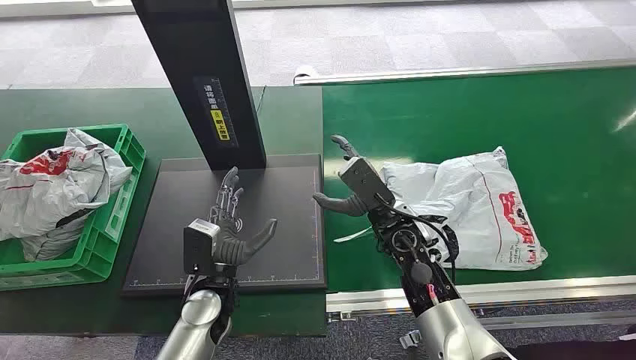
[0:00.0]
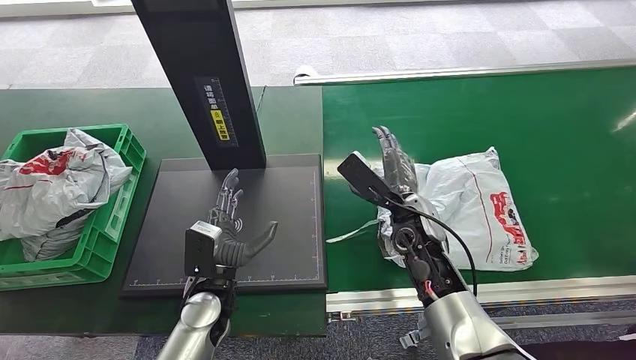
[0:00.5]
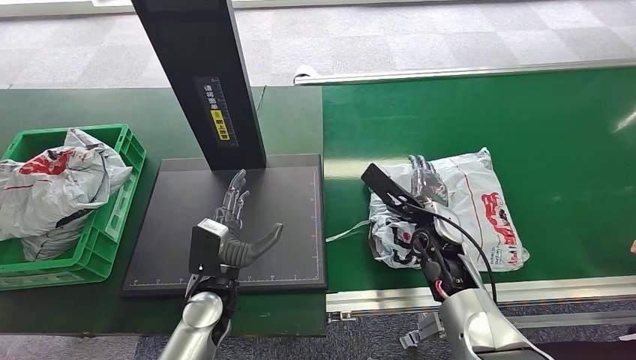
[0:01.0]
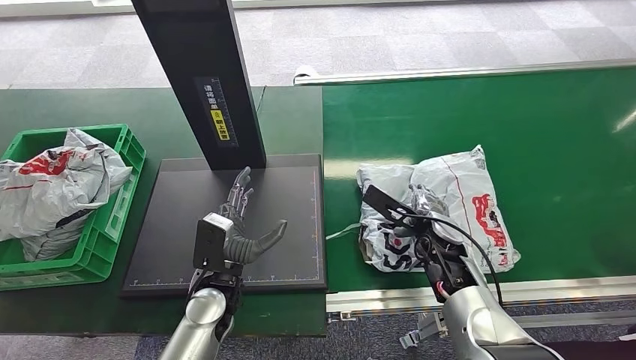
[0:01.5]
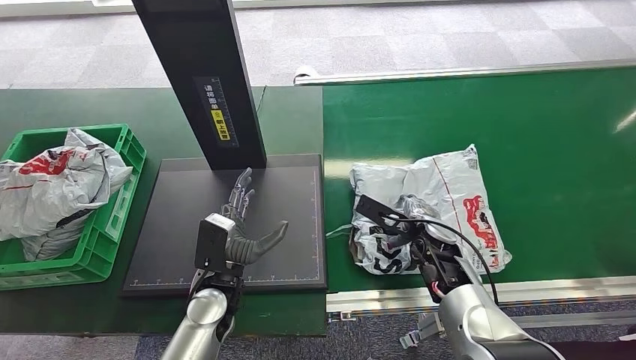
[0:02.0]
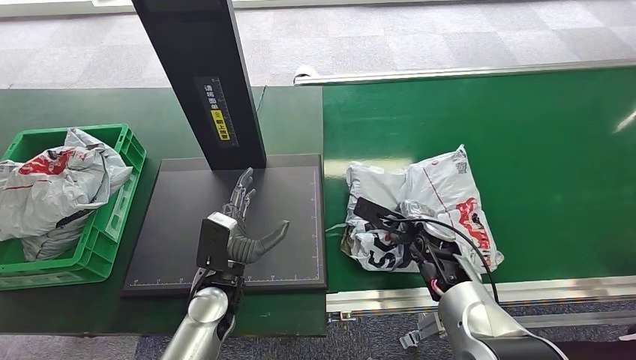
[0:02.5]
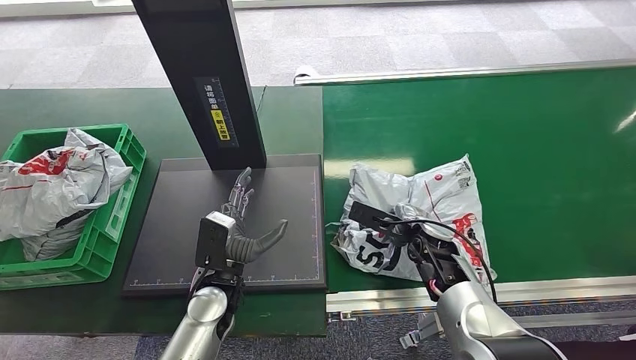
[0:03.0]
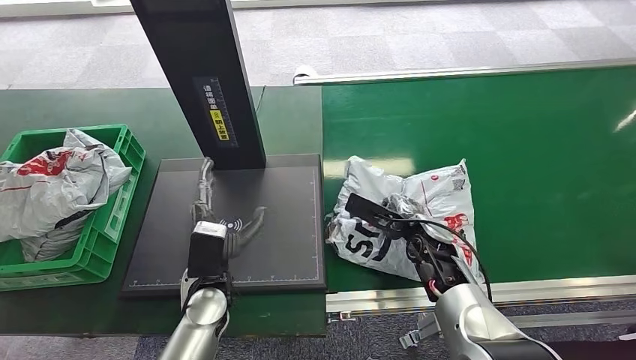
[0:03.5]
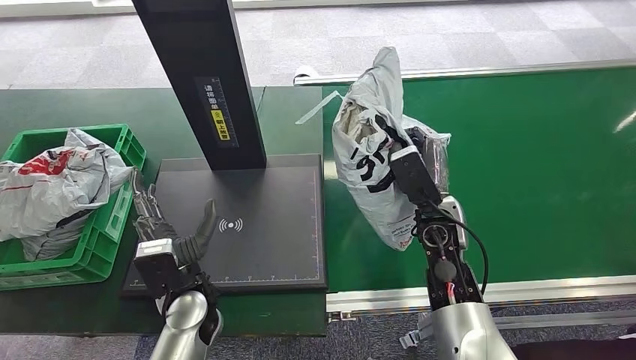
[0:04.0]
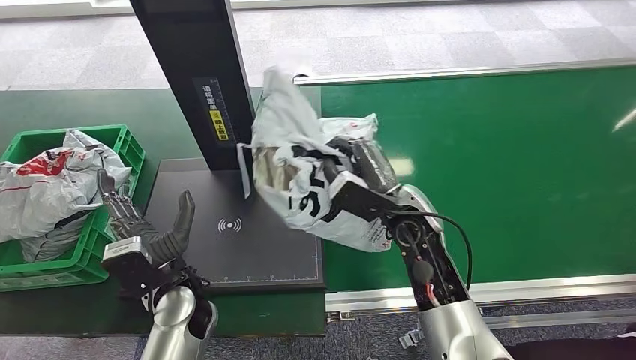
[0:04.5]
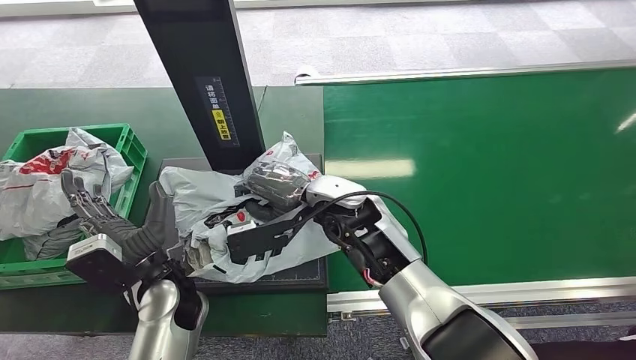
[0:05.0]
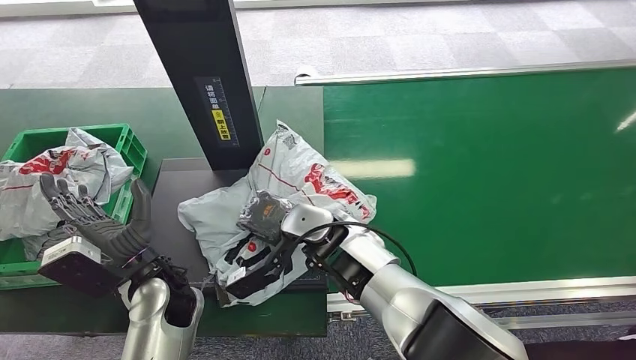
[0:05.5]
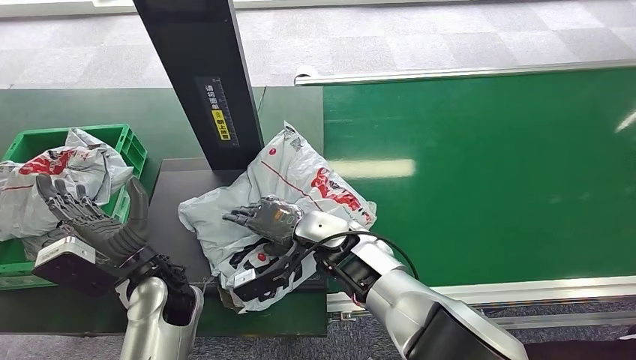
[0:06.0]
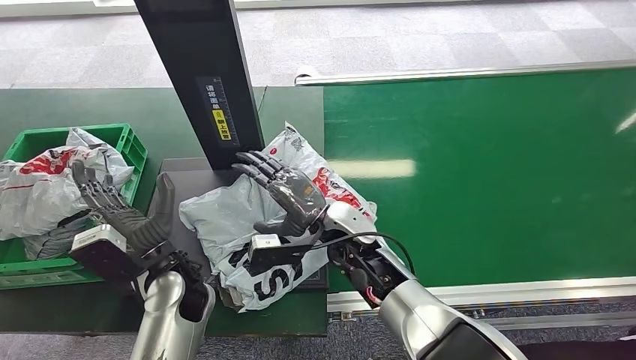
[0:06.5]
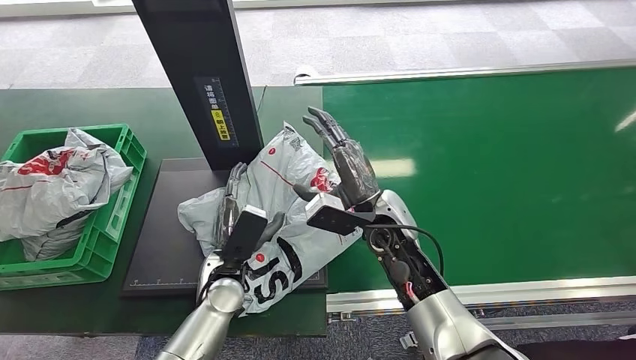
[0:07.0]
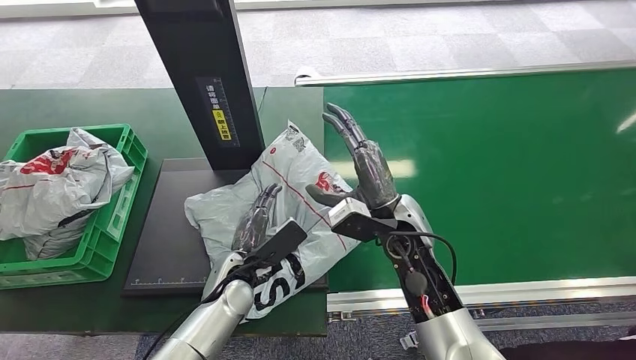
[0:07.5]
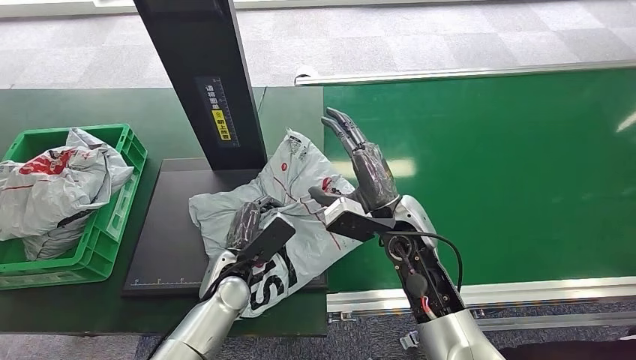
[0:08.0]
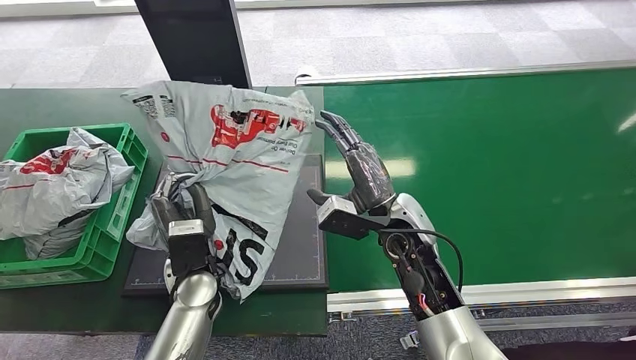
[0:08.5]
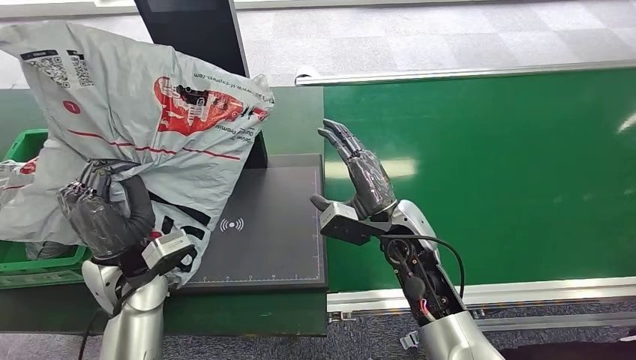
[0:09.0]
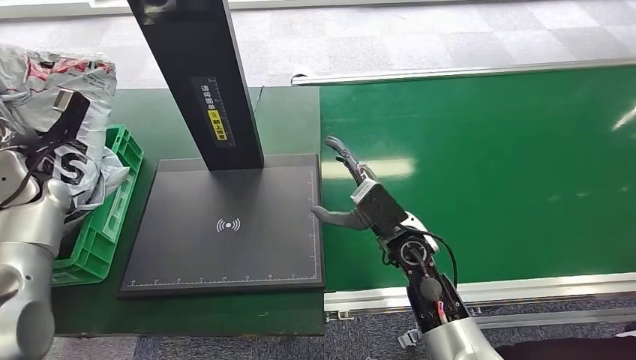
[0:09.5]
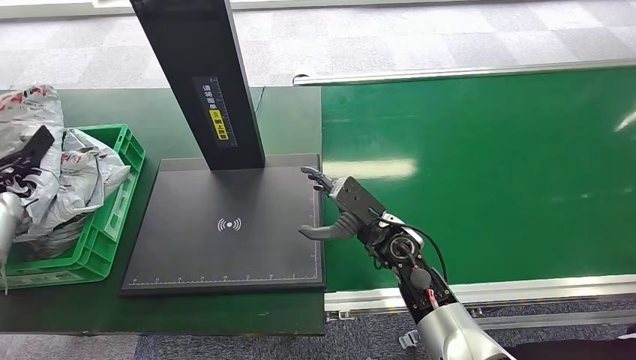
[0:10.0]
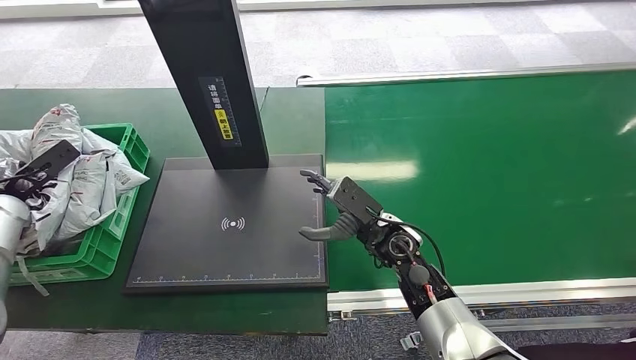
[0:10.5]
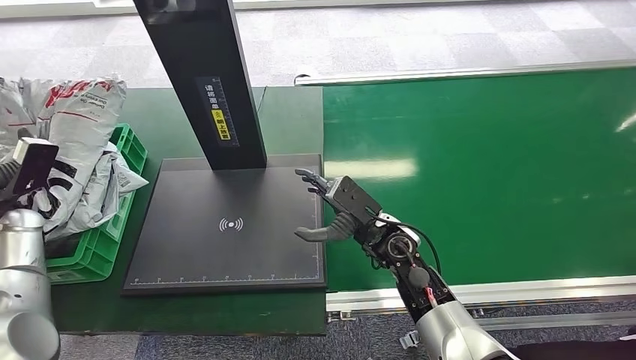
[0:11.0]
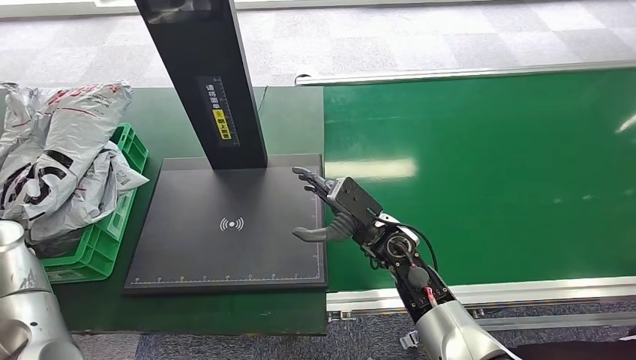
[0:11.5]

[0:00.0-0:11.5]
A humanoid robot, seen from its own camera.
Task of the whole recording: Weigh the package on the weighing device and place it in the left basket.
Step, 0:00.0 to 0:04.0: Pick up the package from the conveyor belt.
Step, 0:04.5 to 0:06.5: Place the package onto the inbound machine.
Step, 0:07.5 to 0:09.0: Pick up the package from the inbound machine.
Step, 0:09.5 to 0:11.5: Place the package into the parcel locker.
0:02.0 to 0:04.0: The right hand moves upward, approximately 5 cm.

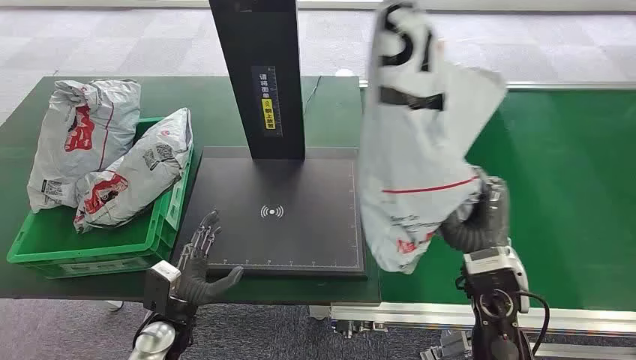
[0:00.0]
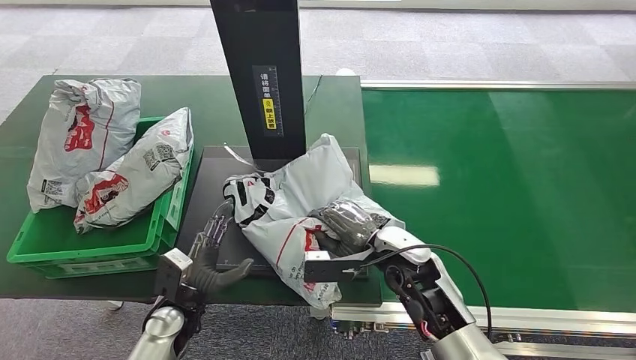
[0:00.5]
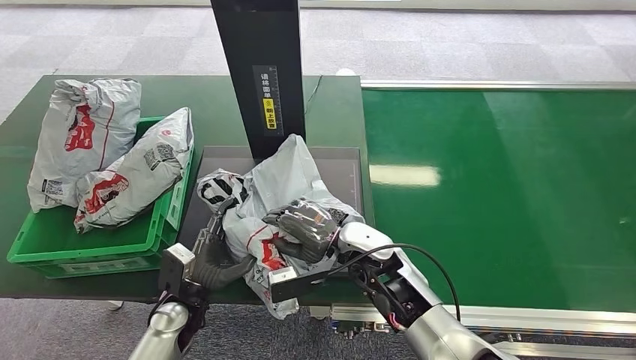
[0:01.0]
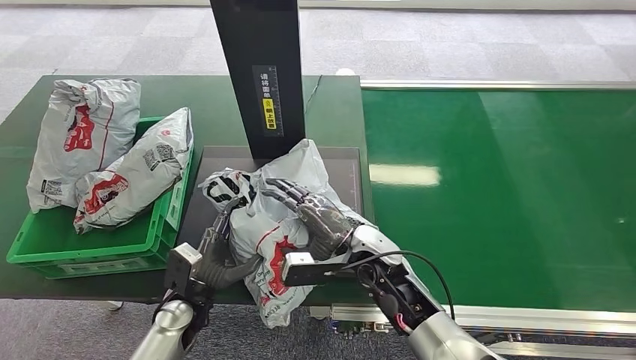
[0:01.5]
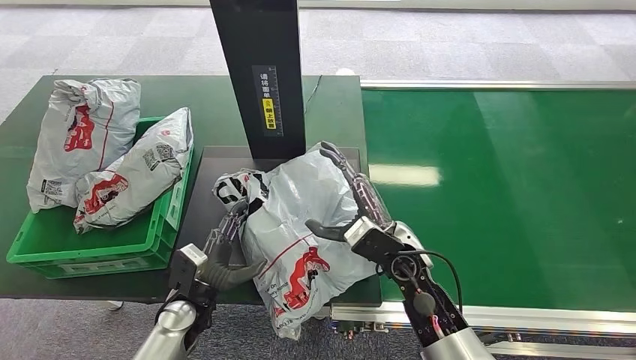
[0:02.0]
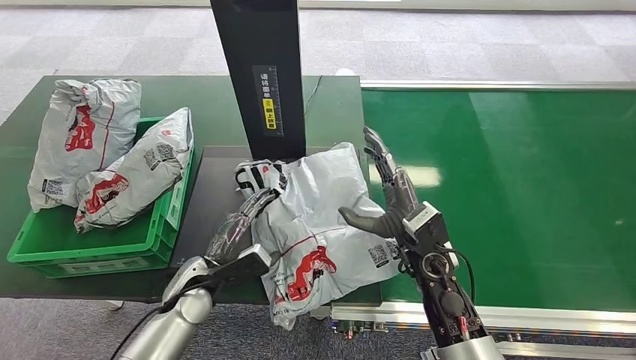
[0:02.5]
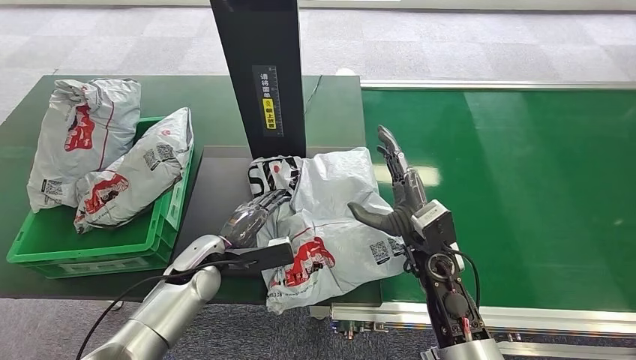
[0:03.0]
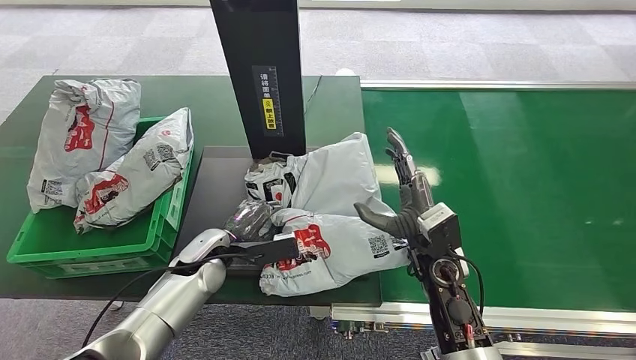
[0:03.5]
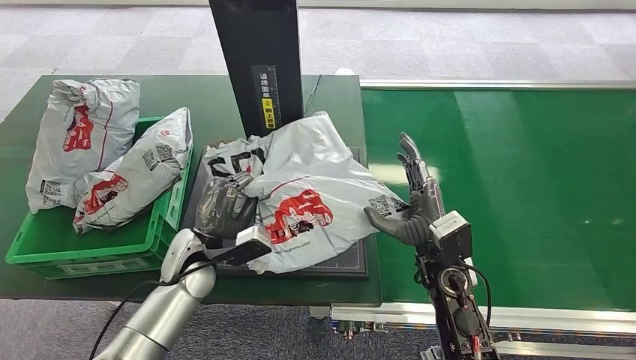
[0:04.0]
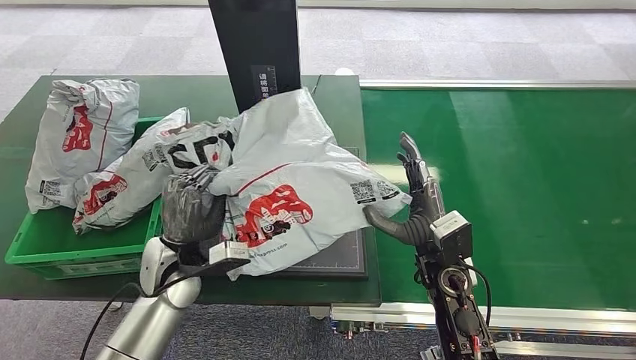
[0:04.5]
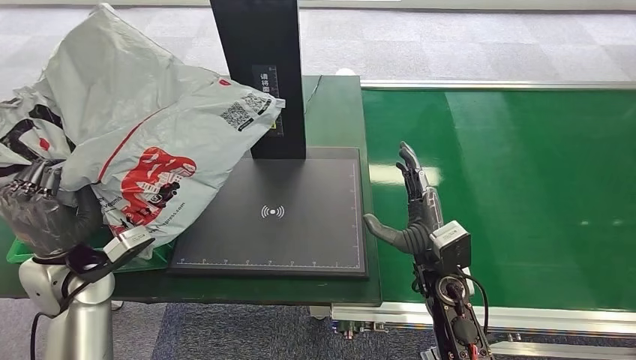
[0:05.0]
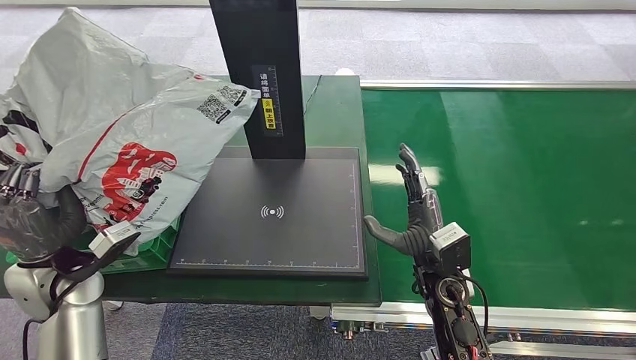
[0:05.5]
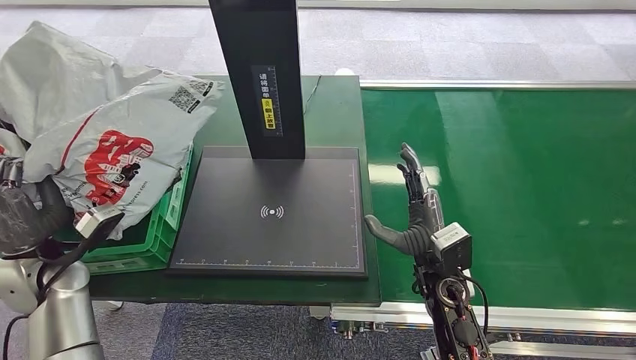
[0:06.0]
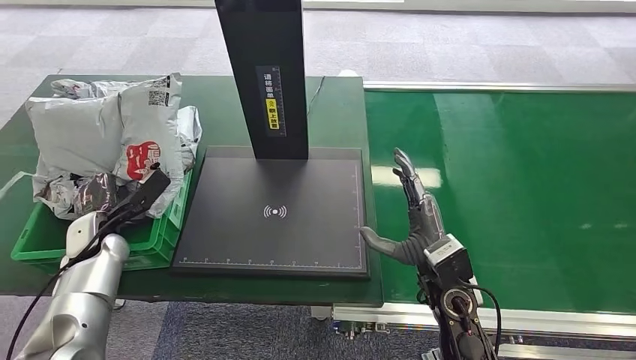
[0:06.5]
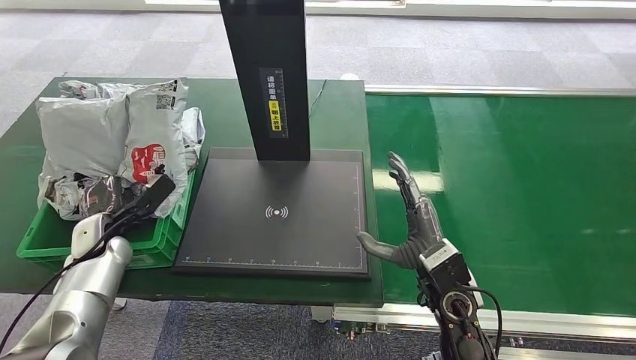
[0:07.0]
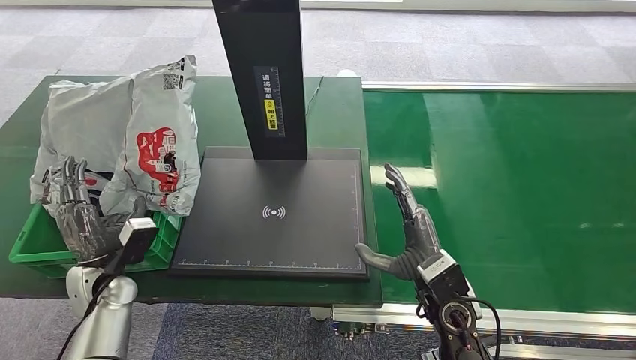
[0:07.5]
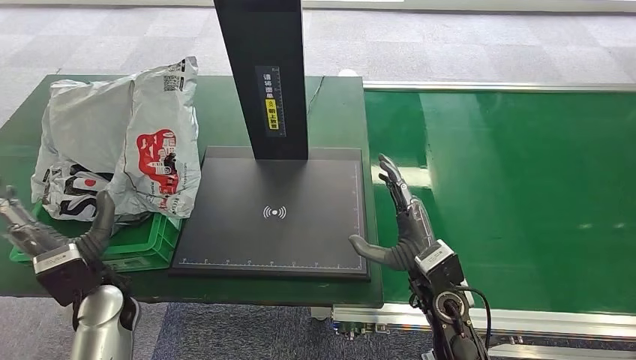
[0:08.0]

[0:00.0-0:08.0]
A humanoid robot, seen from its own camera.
Task of the whole recording: Weigh the package on the weighing device and place it in the left basket.
0:02.0 to 0:04.0: The left hand shifts some 10 cm upward and forward; the right hand goes roughly 5 cm to the right.
